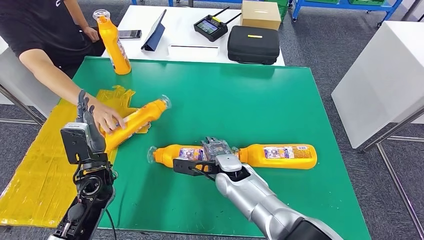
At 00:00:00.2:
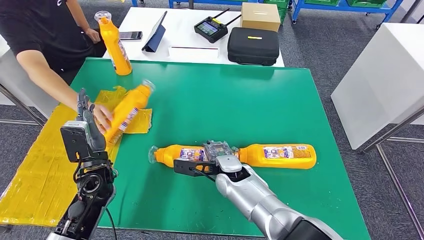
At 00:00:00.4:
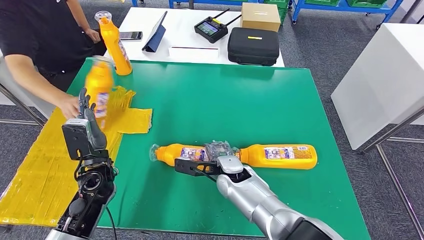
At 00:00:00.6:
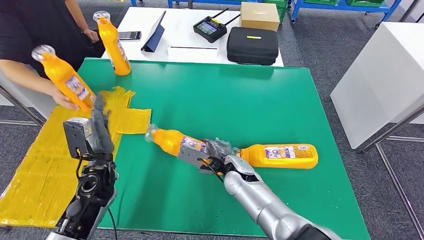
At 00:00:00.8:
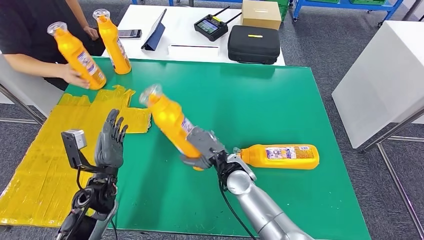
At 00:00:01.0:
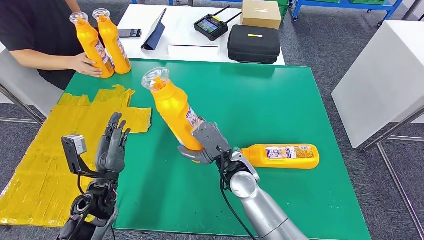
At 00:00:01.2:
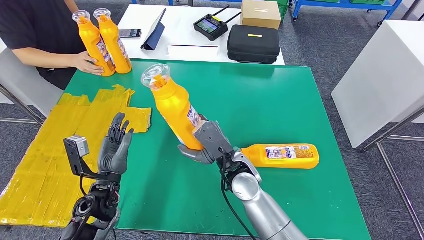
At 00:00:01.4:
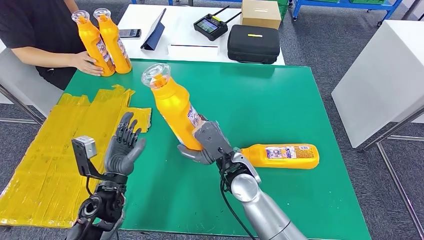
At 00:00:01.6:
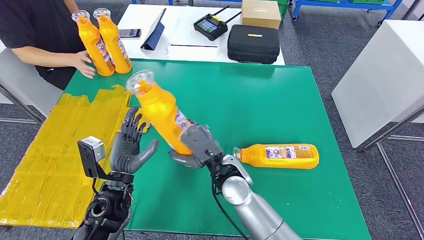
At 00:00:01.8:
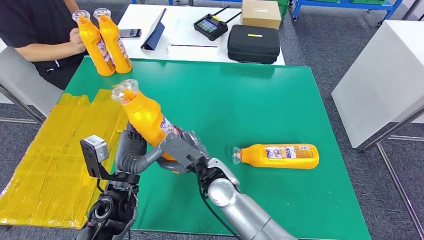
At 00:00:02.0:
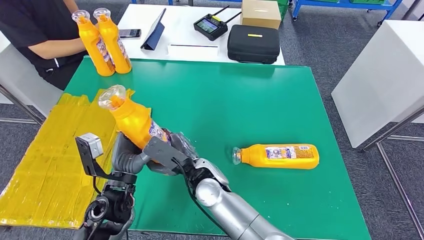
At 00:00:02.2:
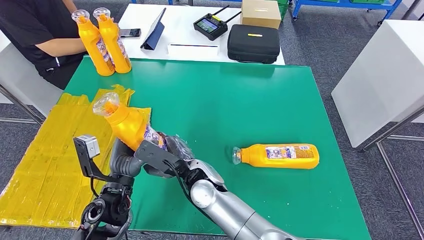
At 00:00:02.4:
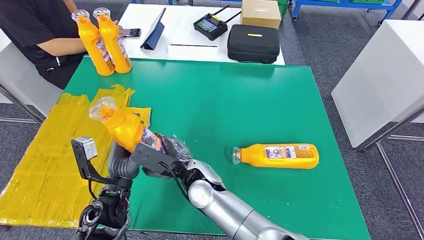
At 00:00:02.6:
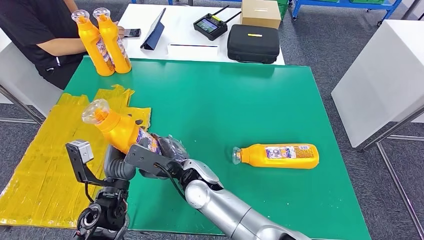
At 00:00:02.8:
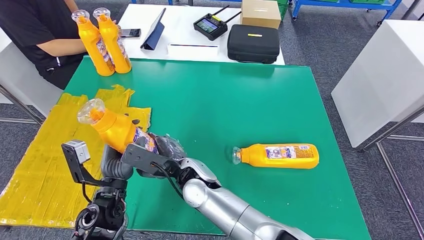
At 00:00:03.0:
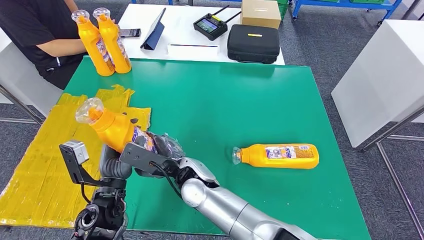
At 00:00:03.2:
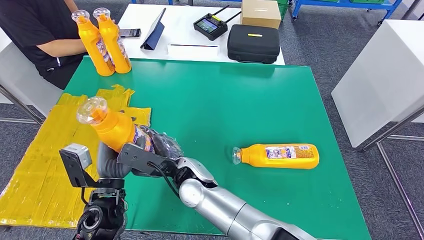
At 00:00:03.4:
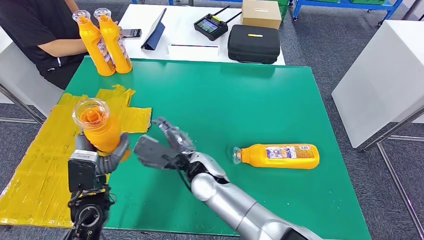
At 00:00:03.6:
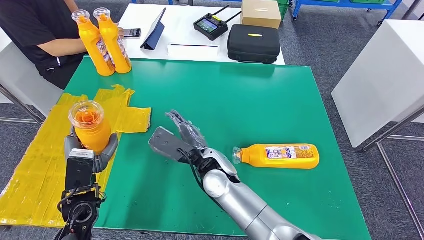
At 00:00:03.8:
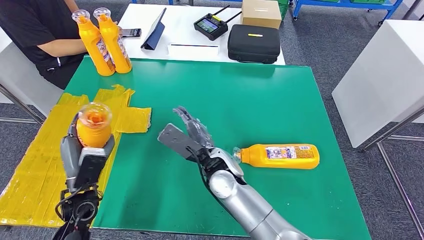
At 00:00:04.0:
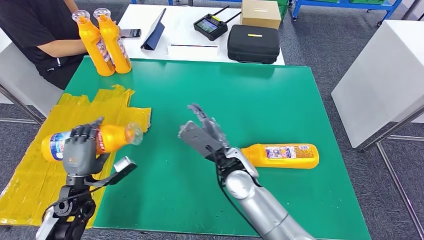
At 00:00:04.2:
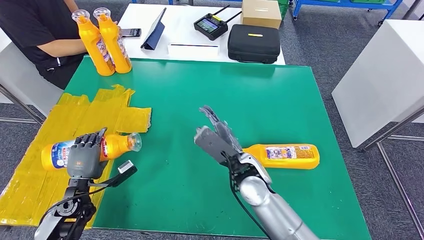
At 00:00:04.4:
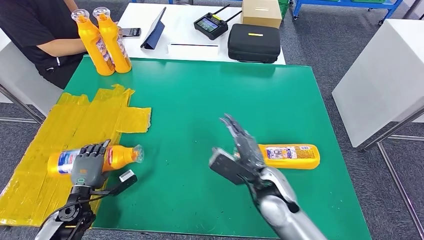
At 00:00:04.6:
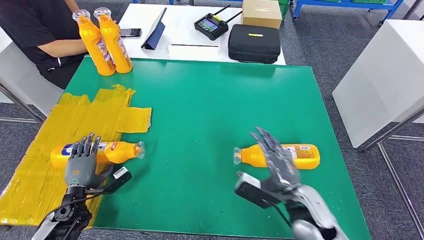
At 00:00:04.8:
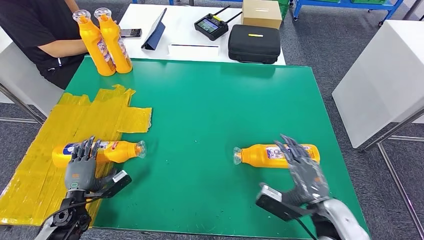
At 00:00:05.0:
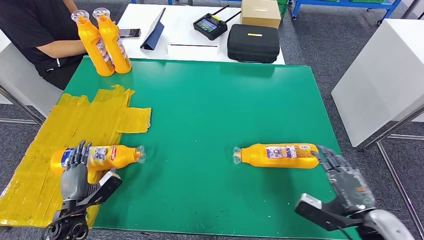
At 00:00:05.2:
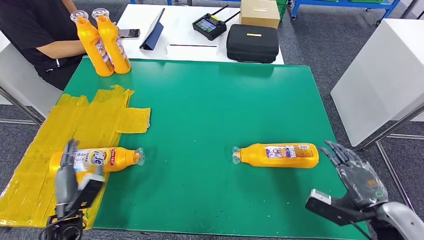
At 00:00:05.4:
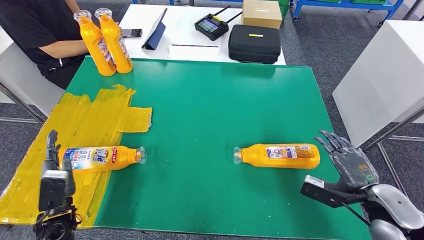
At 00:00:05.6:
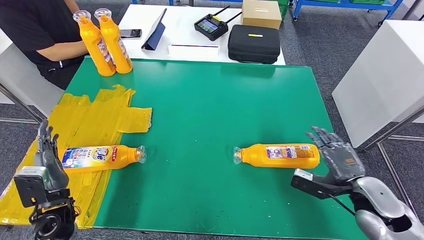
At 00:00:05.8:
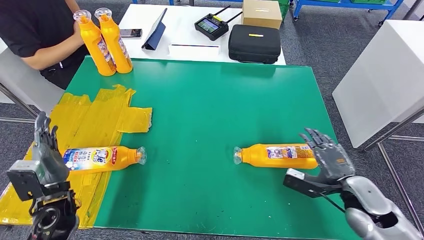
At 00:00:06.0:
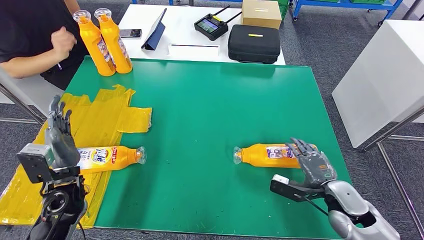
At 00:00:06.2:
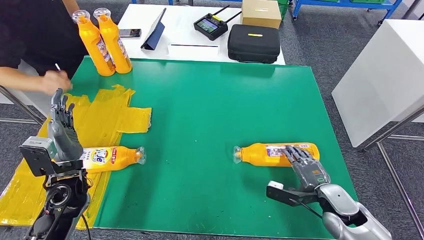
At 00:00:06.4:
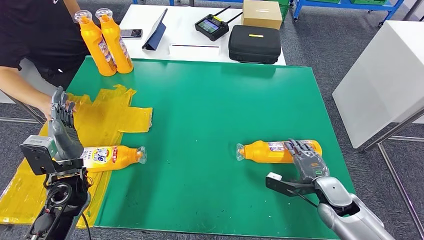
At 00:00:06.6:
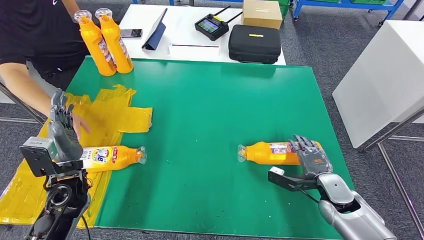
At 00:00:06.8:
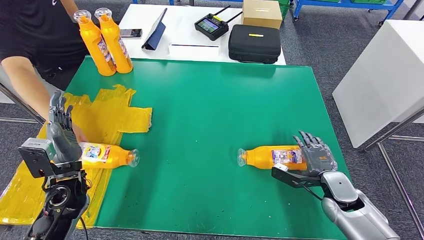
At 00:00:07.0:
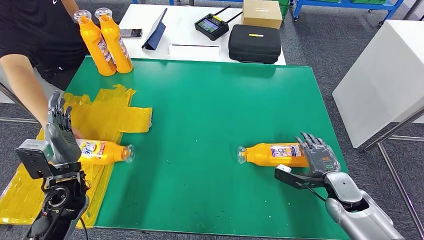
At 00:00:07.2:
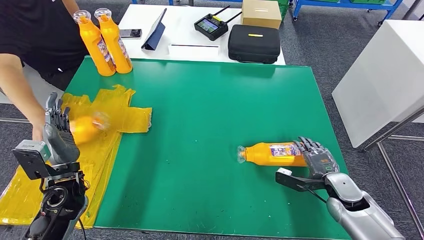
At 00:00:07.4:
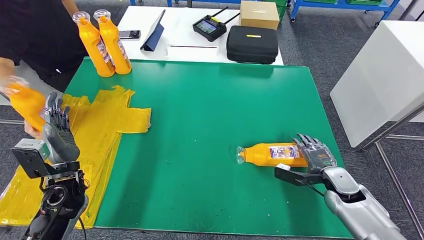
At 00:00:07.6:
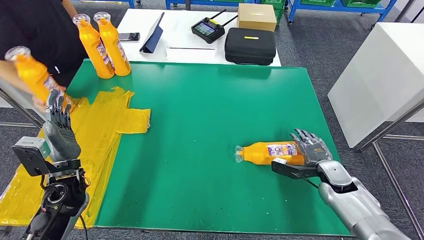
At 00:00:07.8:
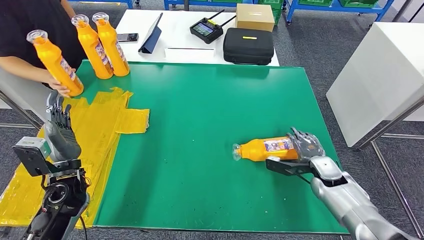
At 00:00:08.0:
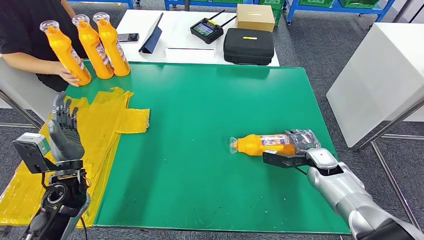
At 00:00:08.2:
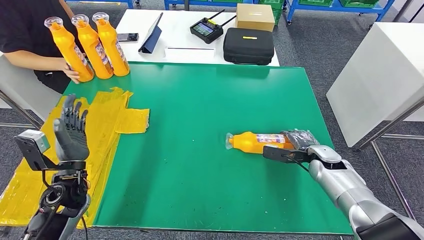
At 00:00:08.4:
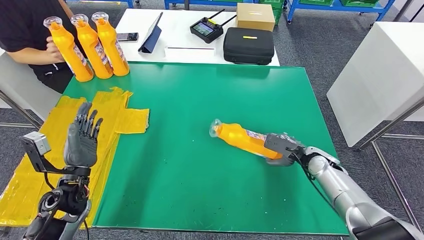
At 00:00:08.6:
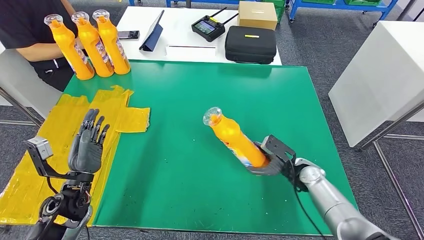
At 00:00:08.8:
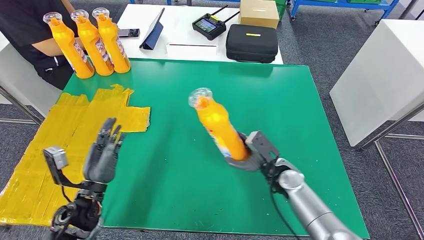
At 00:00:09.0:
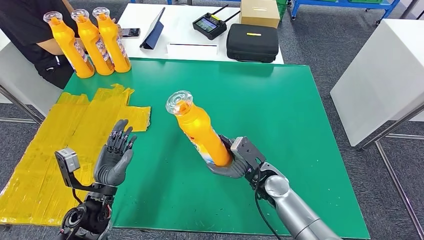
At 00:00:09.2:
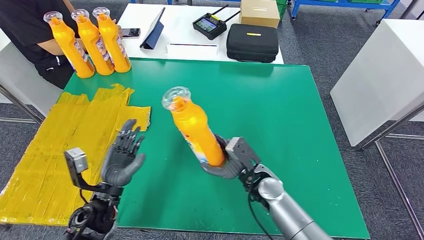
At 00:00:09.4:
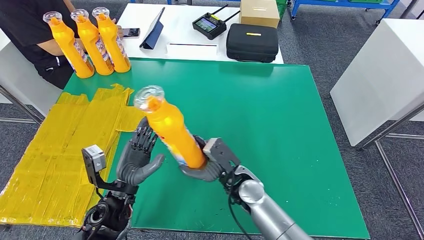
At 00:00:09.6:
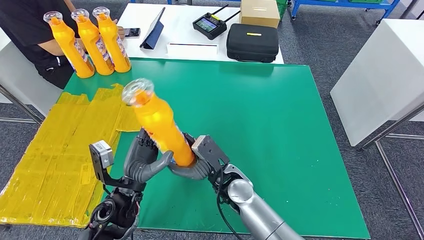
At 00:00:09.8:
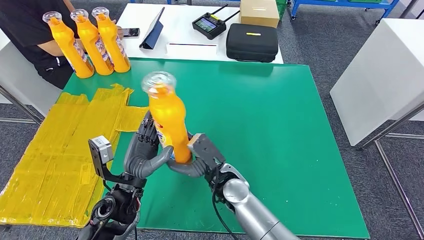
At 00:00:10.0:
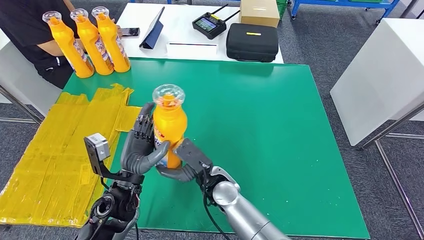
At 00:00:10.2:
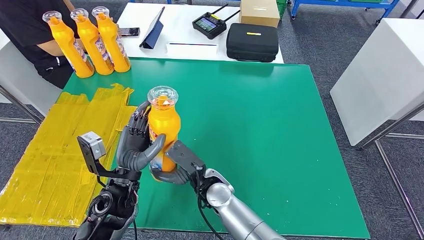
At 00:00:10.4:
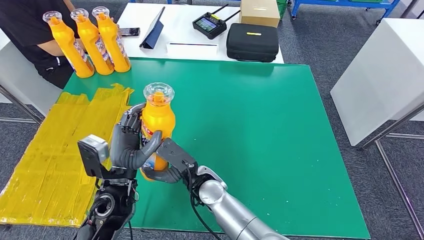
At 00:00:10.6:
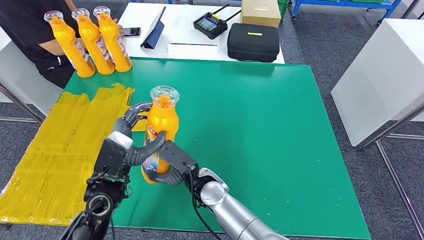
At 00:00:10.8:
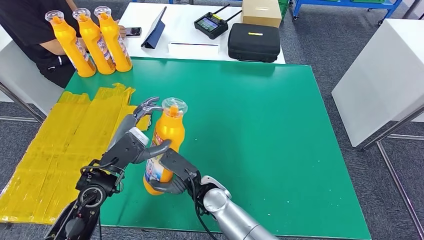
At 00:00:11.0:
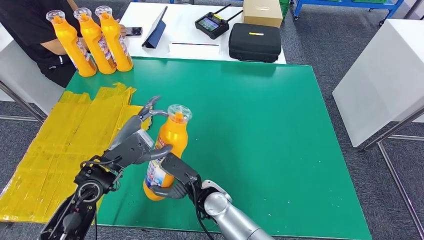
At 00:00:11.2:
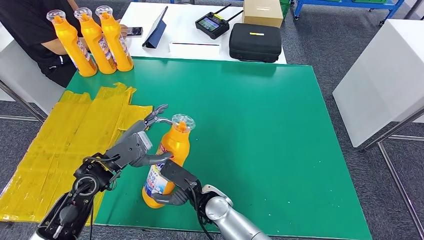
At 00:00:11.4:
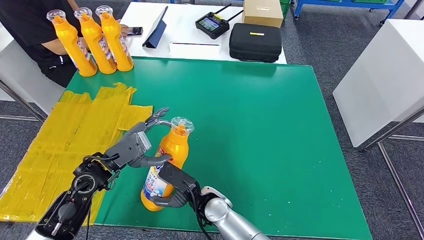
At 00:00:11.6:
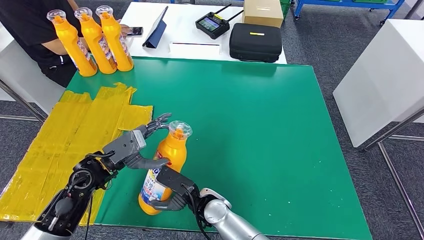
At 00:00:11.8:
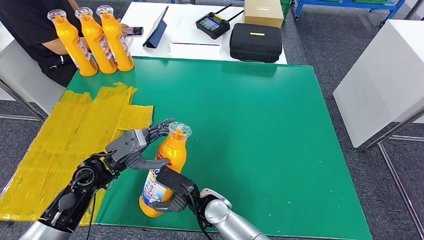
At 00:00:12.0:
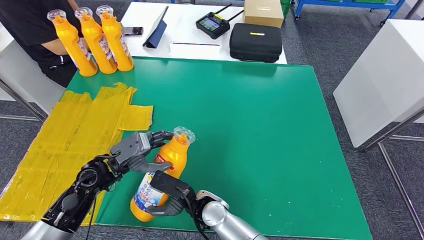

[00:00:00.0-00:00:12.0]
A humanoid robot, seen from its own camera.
Step, 00:00:00.0 to 00:00:01.2: Pick up the bottle from the table.
Step, 00:00:01.6 to 00:00:05.6: Flip the bottle to face forward.
Step, 00:00:05.8 to 00:00:08.8: Pick up the bottle from the table.
00:00:01.6 to 00:00:03.0: The right hand shifts about 10 cm to the left.
00:00:03.0 to 00:00:04.4: The right hand is displaced to the right by about 20 cm. The left hand heads to the left and downward, covering roughly 20 cm.
00:00:09.0 to 00:00:10.4: The right hand shifts approximately 20 cm to the left. Meanwhile the left hand travels to the right and upward by about 10 cm.

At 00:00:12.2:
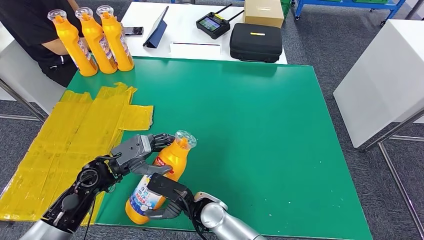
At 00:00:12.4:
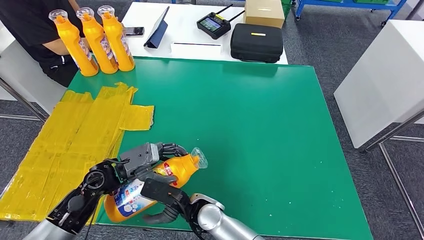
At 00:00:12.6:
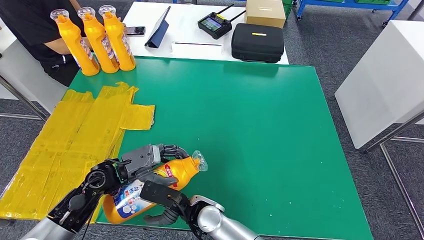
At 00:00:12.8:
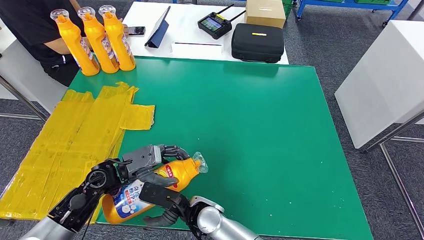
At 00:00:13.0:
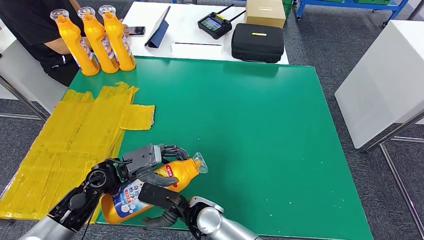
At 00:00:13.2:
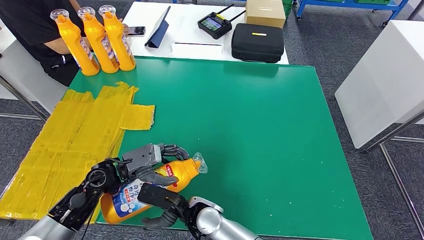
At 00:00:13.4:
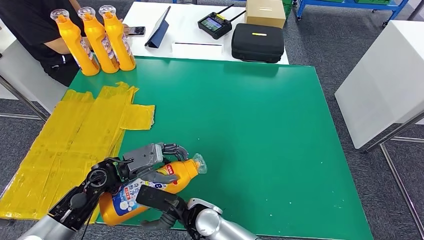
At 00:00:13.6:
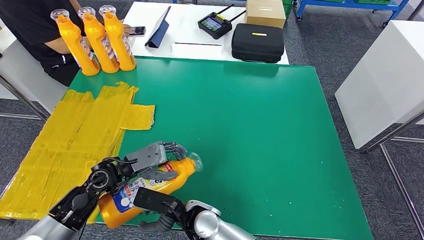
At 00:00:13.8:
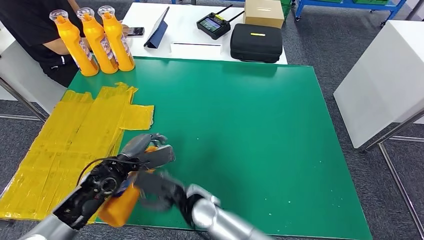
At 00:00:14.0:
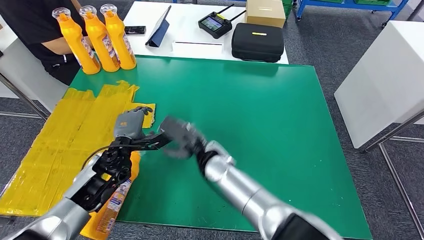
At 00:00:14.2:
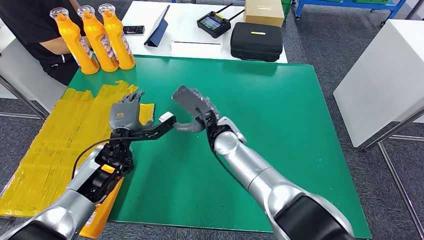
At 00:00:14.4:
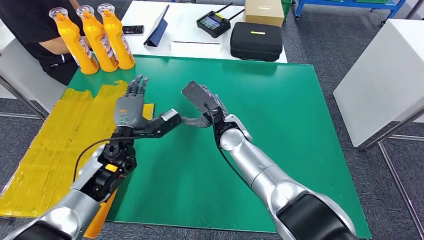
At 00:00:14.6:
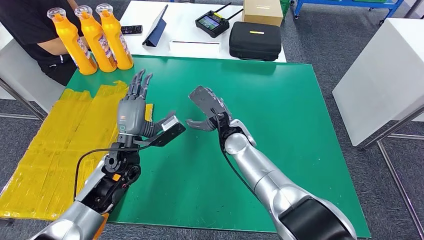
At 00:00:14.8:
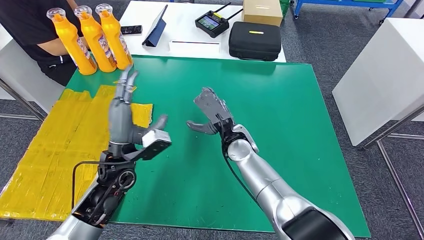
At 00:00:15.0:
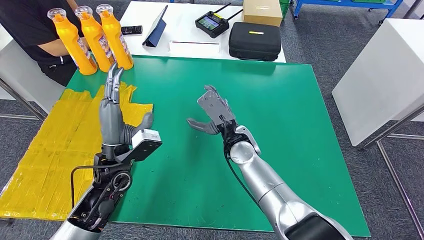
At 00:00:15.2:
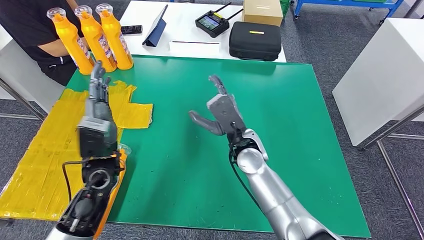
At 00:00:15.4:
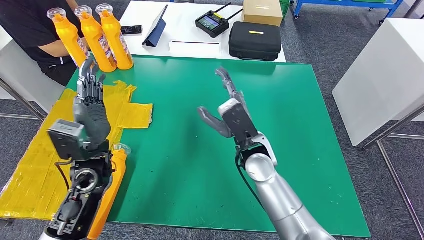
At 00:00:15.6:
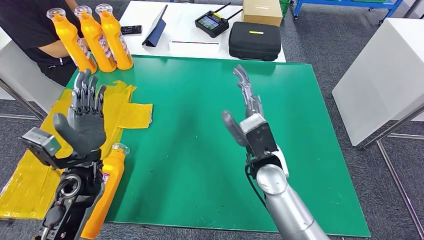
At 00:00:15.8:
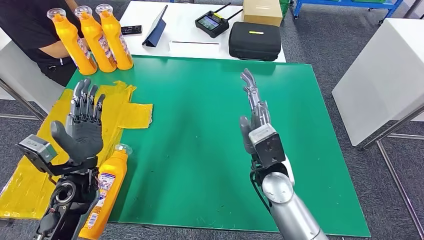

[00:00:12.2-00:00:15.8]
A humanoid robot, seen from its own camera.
Step, 00:00:12.2 to 00:00:15.6: Flip the bottle to face forward.
